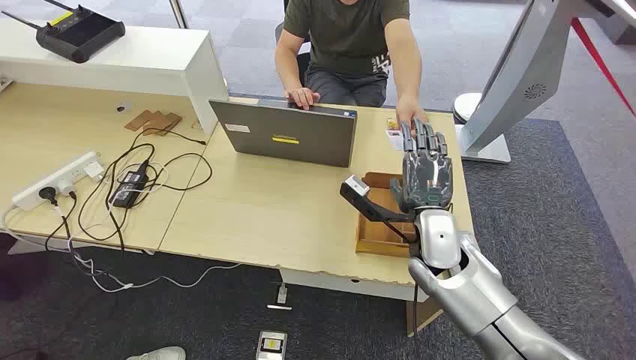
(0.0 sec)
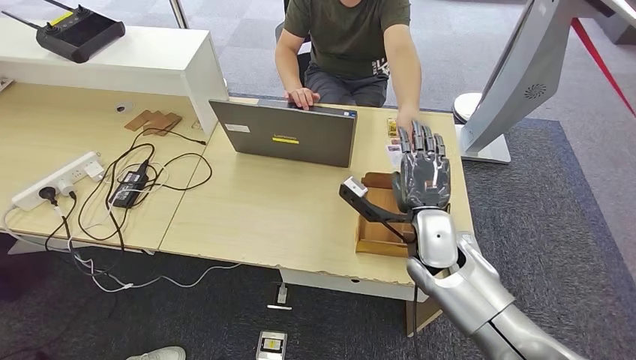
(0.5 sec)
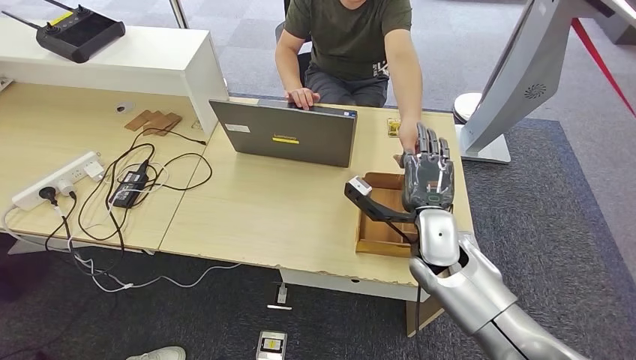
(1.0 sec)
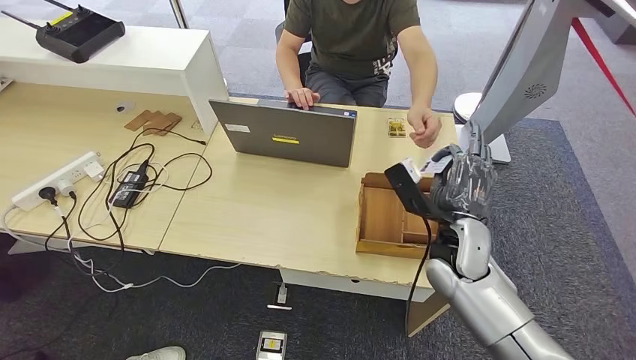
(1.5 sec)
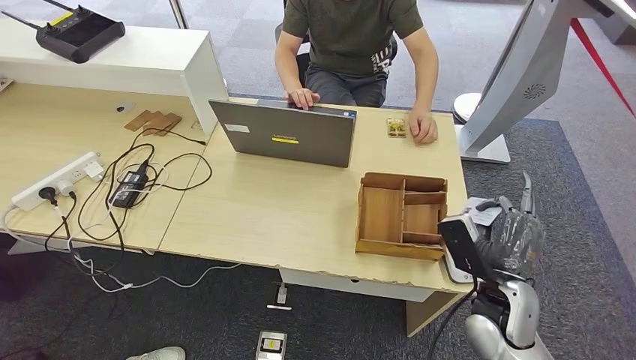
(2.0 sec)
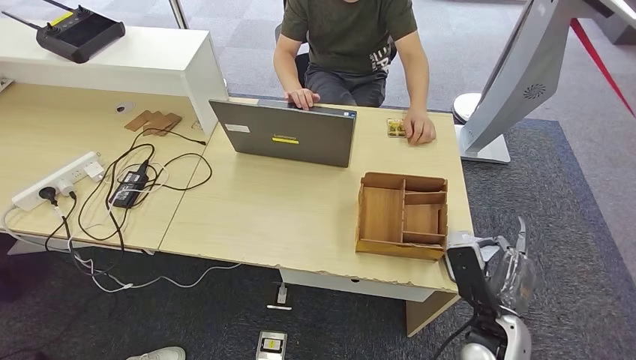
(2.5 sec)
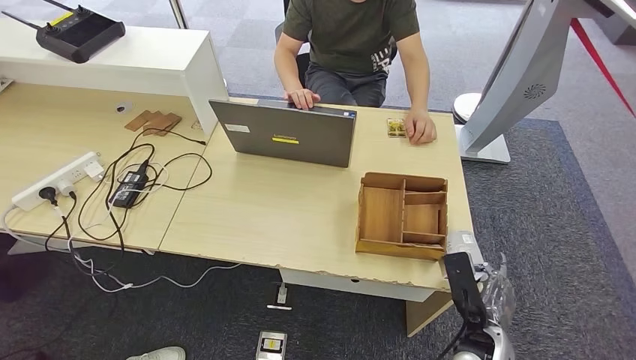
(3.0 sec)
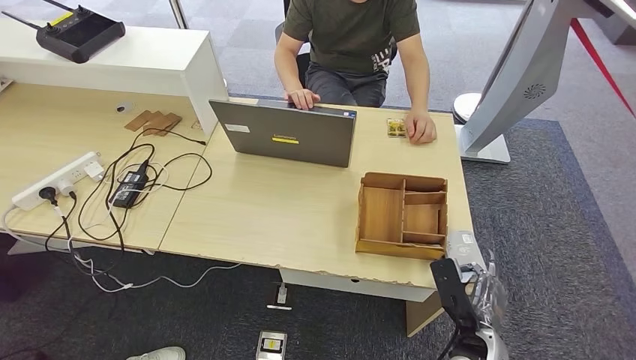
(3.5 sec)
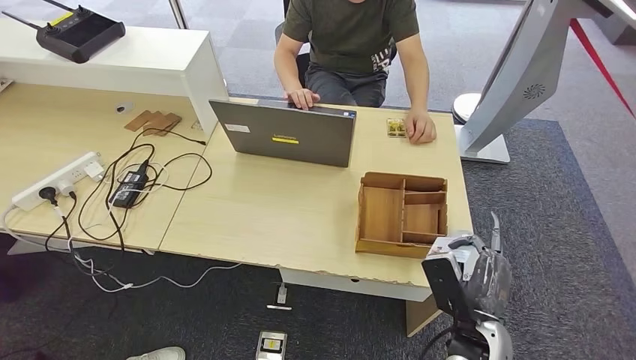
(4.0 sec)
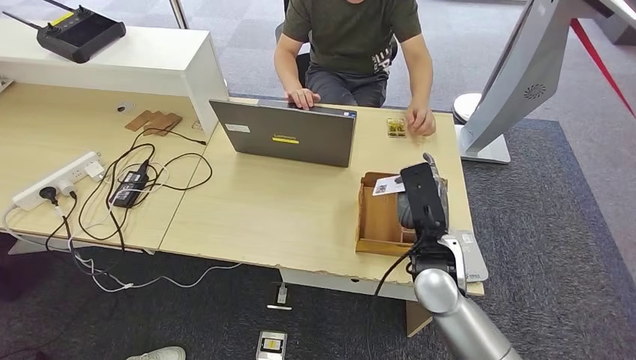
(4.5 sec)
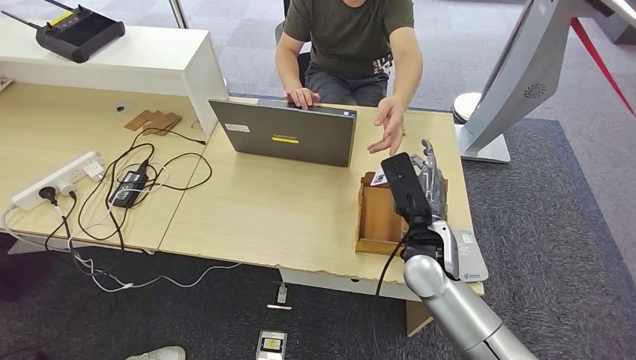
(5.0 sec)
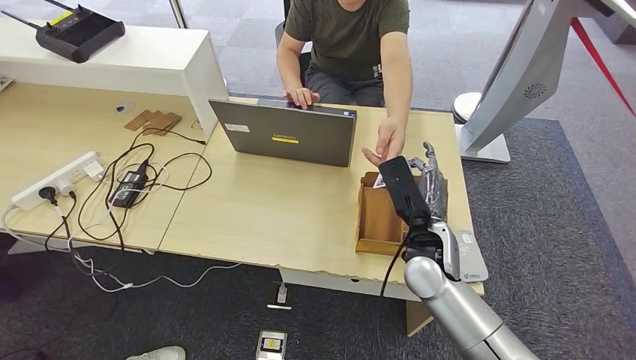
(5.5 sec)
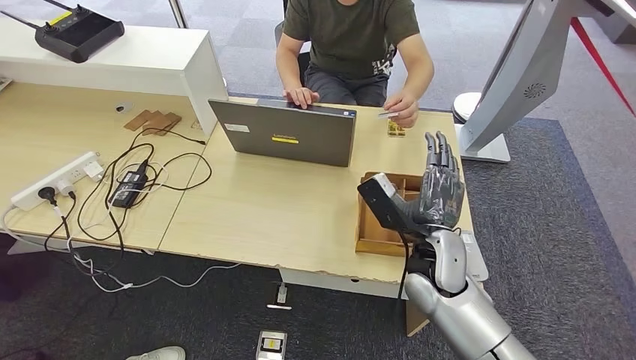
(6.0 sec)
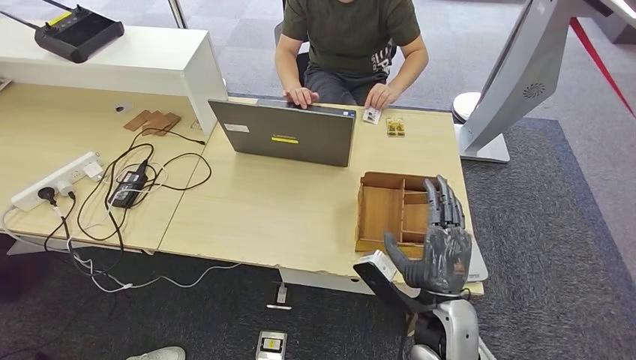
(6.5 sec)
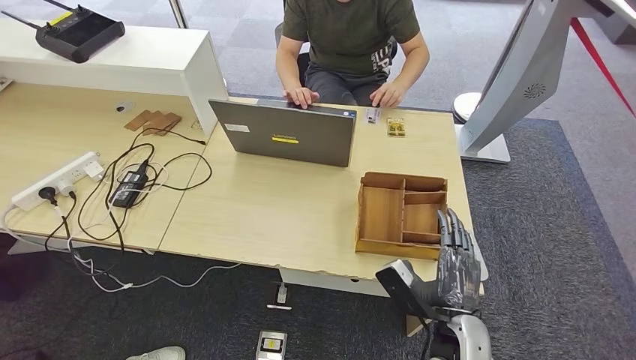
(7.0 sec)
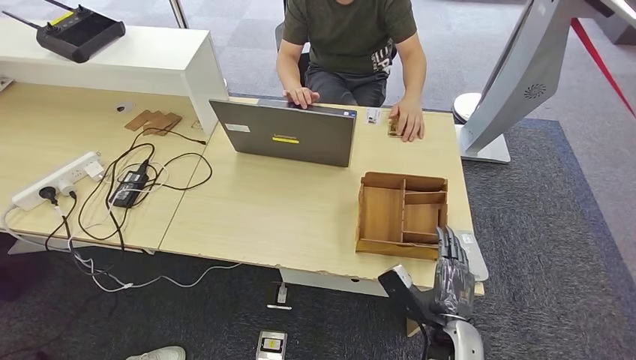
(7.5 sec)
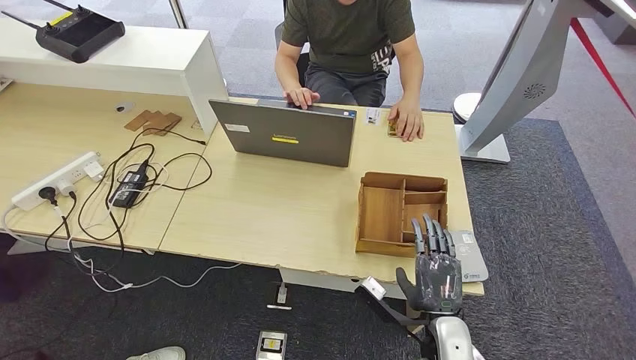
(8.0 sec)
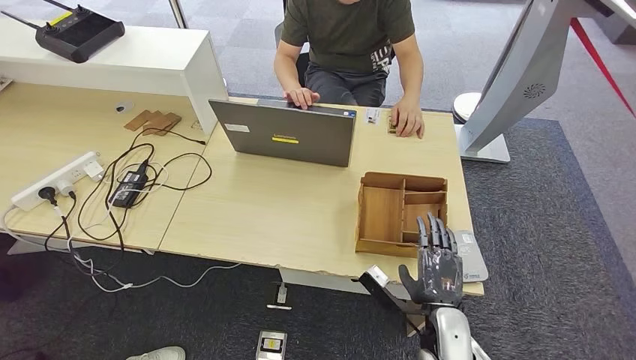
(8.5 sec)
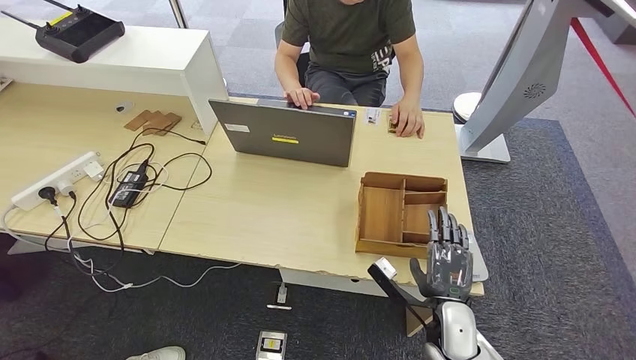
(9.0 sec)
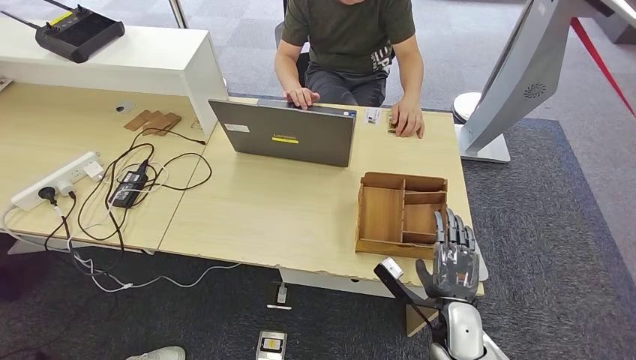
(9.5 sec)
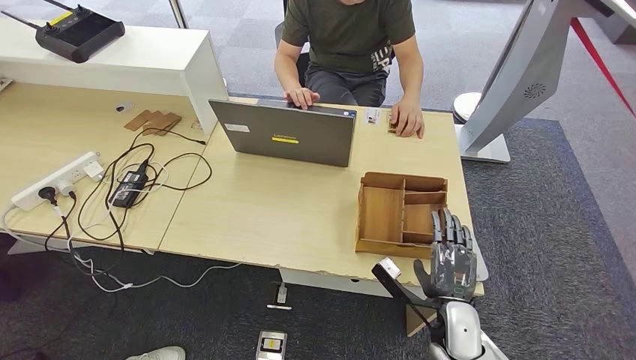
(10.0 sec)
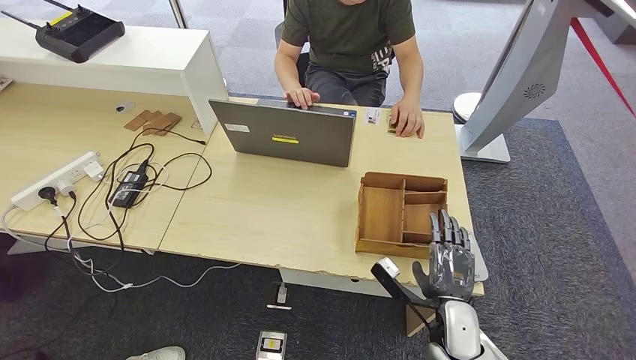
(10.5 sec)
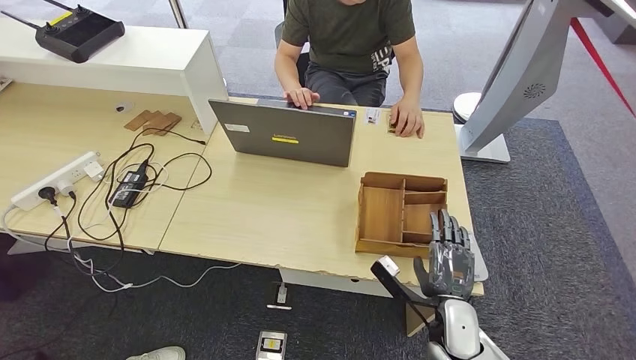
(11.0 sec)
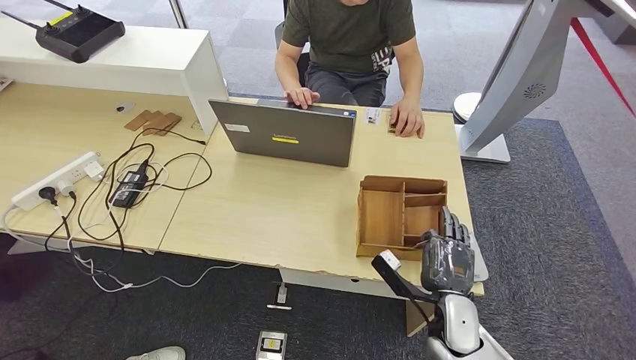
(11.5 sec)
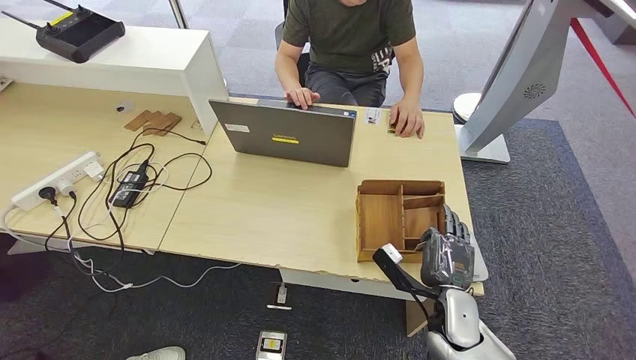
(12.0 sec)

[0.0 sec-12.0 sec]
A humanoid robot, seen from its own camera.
Step, 0.0 sec to 1.5 sec: Take the ID card from the person's hand.
Step, 2.0 sec to 4.0 sec: Place the ID card on the card reader.
Step, 4.5 sec to 6.5 sec: Hand the ID card to the person.
2.0 sec to 4.0 sec: The right hand is displaced backward by some 5 cm, and goes downward and returns, about 10 cm each way.
4.0 sec to 6.0 sec: The right hand goes approximately 15 cm forward, upward and to the left. The left hand moves forward, approximately 5 cm.
6.0 sec to 8.0 sec: The right hand heads downward and backward, covering about 15 cm; the left hand heads backward, covering roughly 5 cm.
8.0 sec to 12.0 sec: The hands make only small movements.

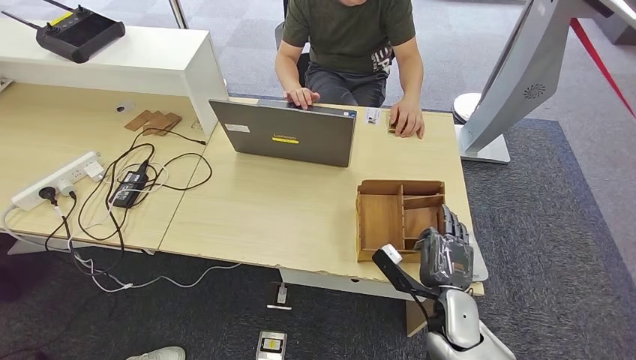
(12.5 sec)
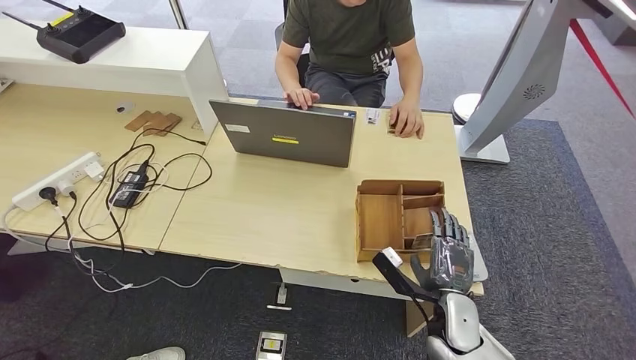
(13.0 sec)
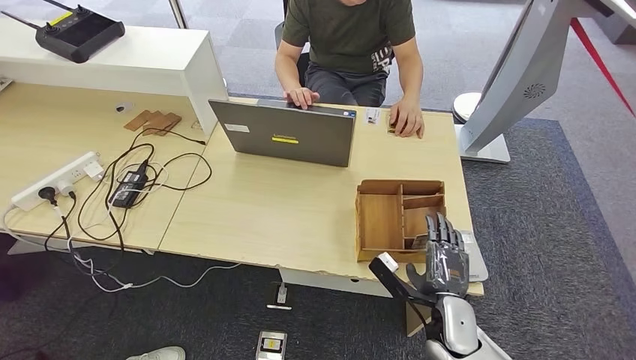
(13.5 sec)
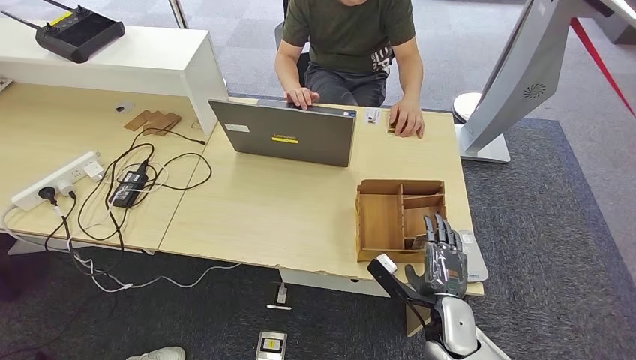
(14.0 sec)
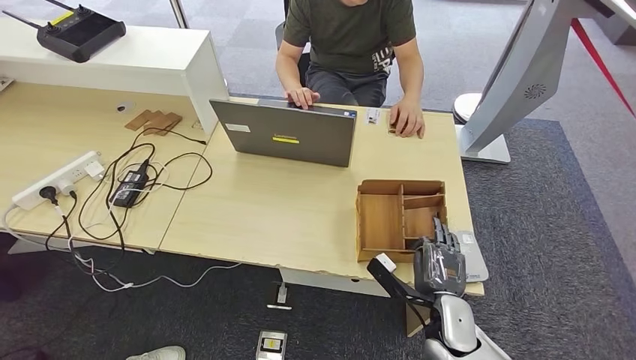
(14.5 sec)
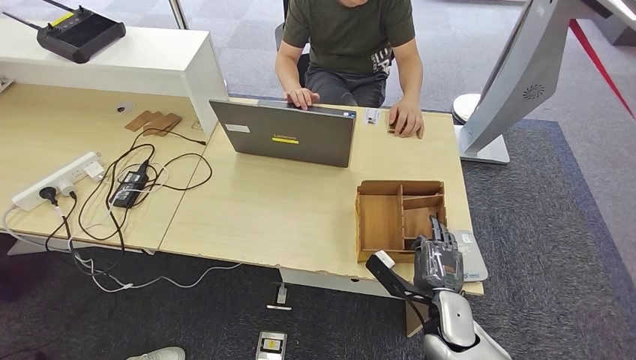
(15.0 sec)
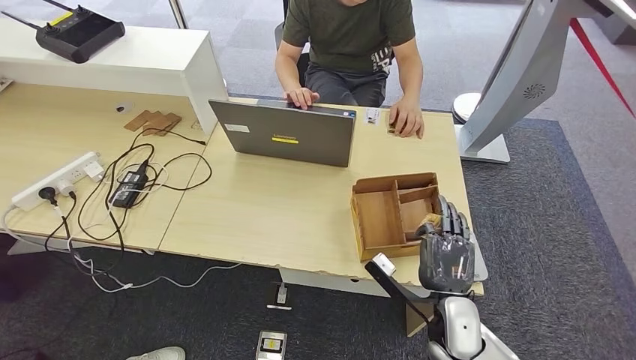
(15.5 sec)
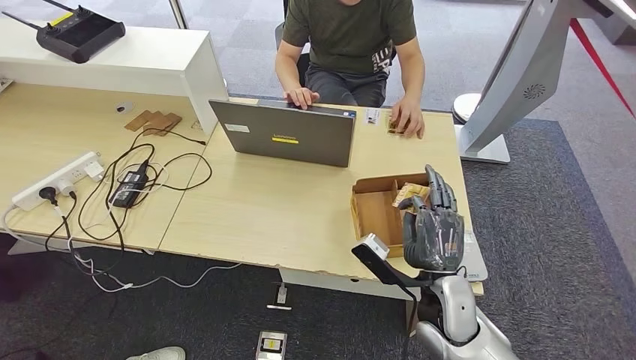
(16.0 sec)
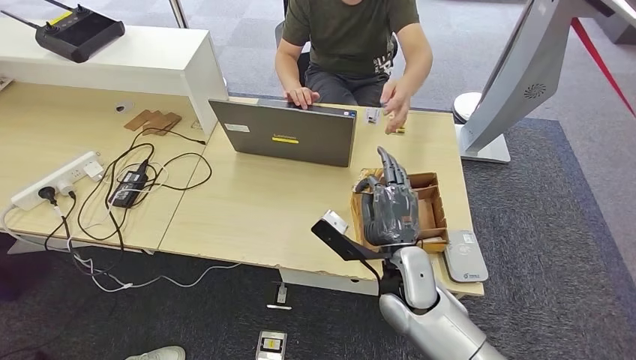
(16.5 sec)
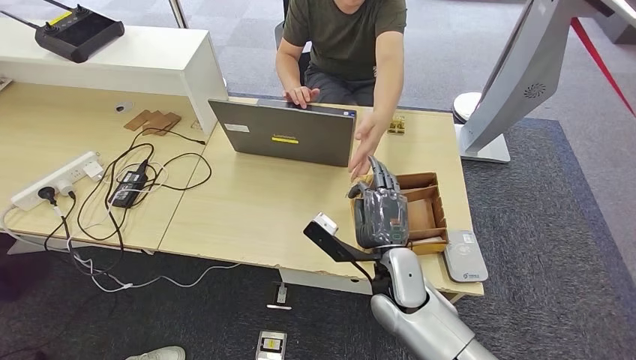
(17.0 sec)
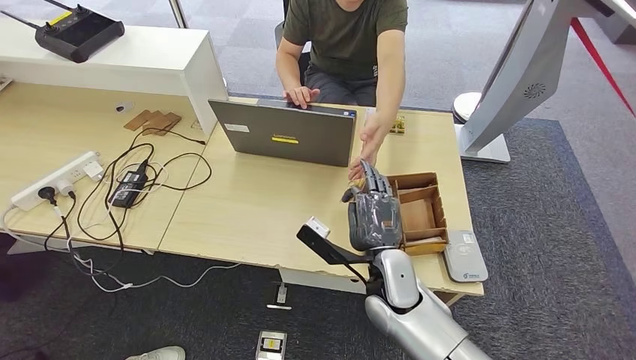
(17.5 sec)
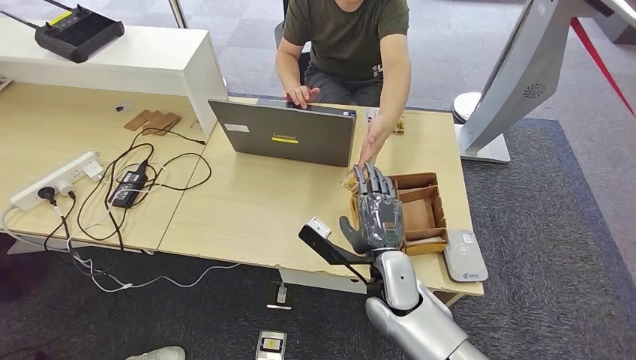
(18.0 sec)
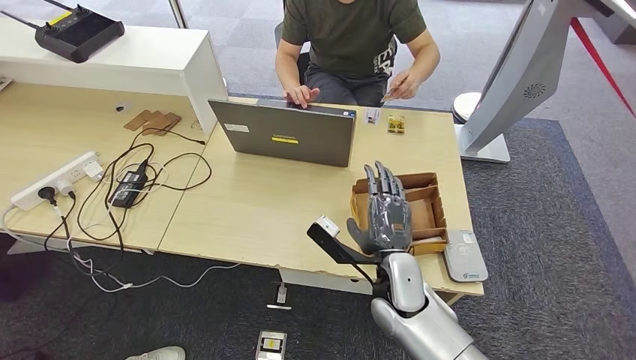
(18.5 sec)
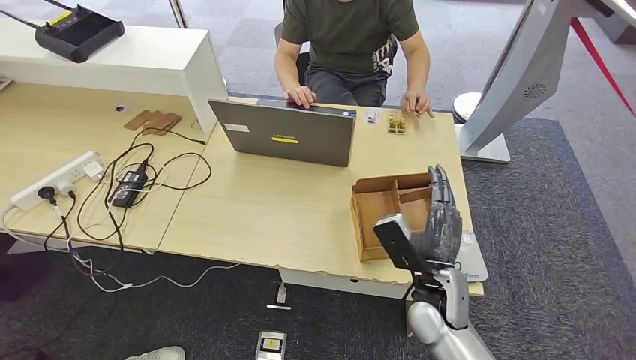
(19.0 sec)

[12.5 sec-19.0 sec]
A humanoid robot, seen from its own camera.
Step, 12.5 sec to 16.0 sec: Pick up the room key from the key card box.
Step, 16.5 sec to 19.0 sec: Hand the room key to the person.
12.5 sec to 14.5 sec: The hands move only a little.
14.5 sec to 17.0 sec: The right hand shifts approximately 15 cm to the left and upward.
17.0 sec to 19.0 sec: The right hand is displaced to the right by roughly 5 cm.
